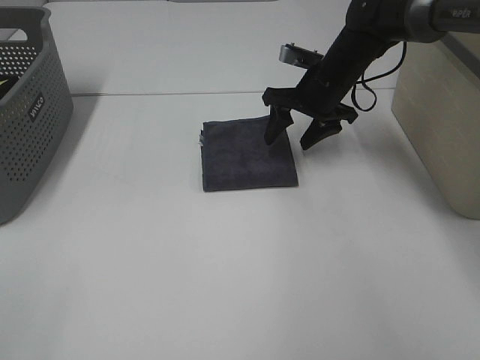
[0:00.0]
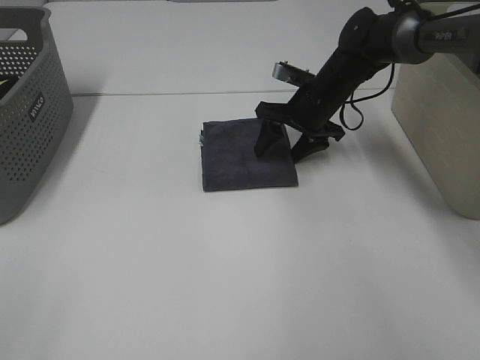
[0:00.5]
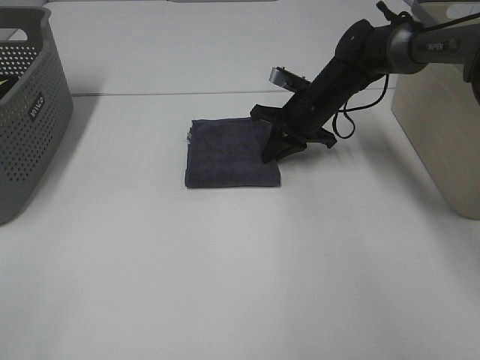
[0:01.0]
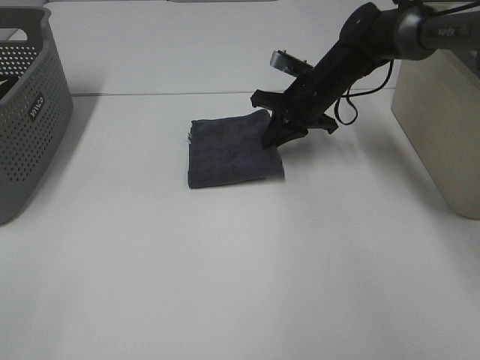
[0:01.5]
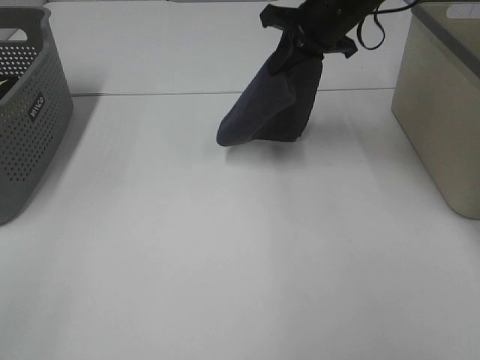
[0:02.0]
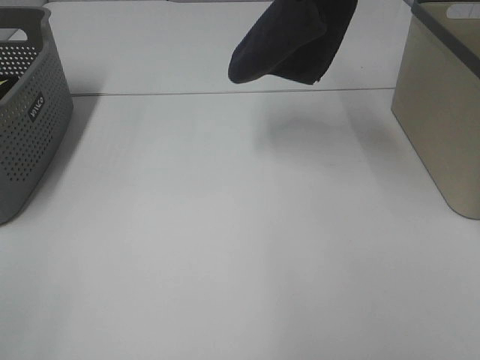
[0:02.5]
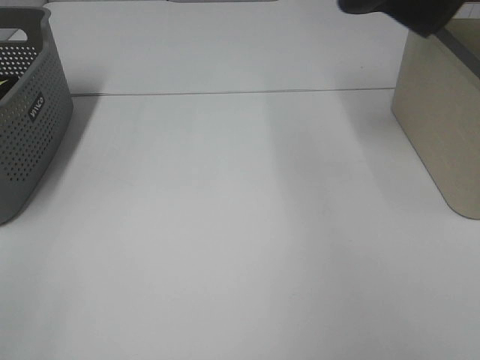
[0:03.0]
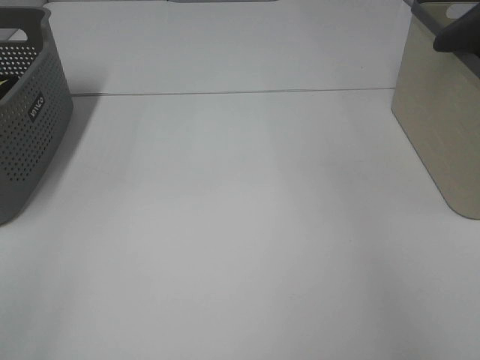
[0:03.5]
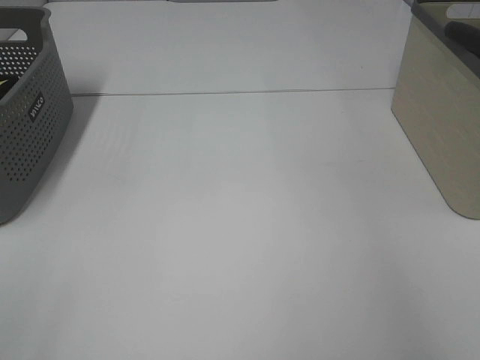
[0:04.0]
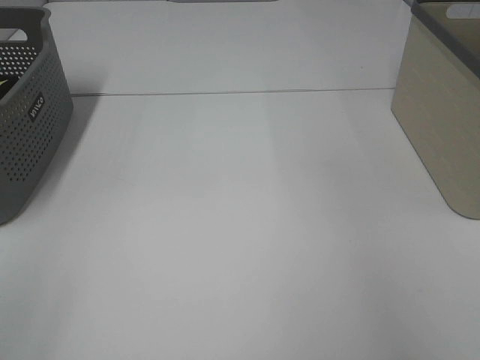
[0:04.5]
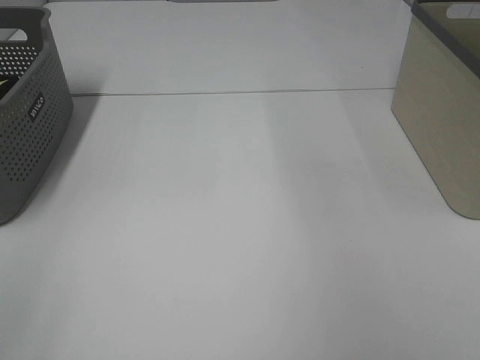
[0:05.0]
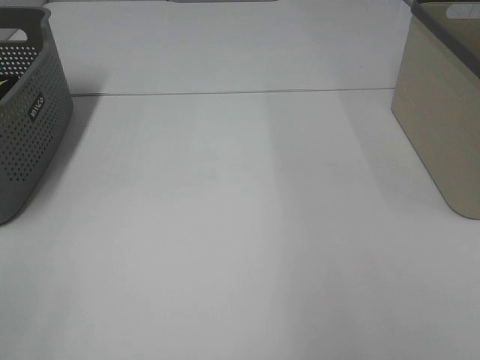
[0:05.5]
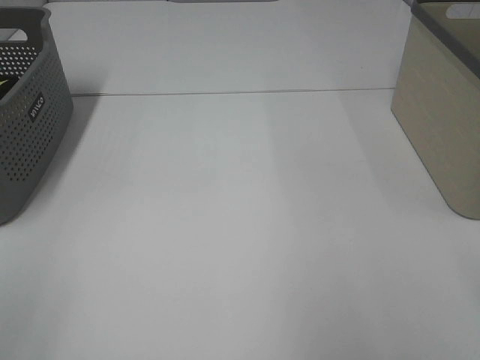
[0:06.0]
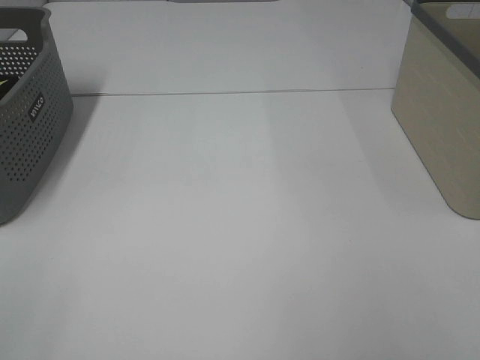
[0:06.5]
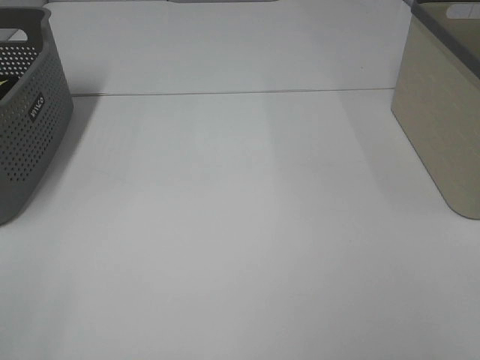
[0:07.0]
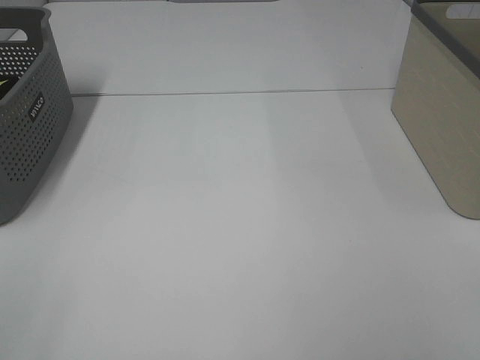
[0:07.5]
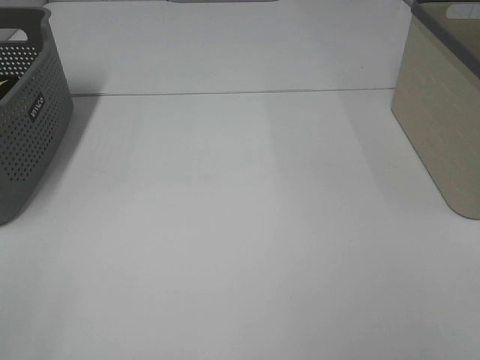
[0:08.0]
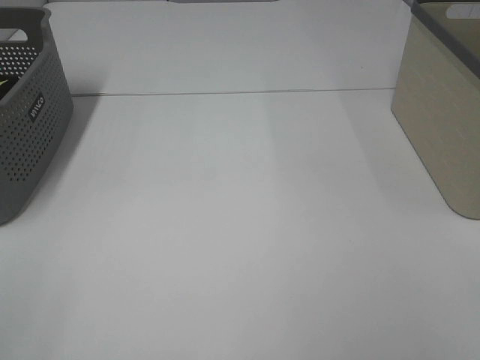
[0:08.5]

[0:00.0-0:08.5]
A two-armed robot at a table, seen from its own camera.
Step, 0:01.5 to 0:04.0: Right hand: place the grey towel in right basket.
0:00.0 to 0:02.0: The right gripper is displaced upward by some 10 cm, and closes up.
0:02.0 to 0:04.0: The right gripper heads to the right, covering roughly 25 cm, and opens up.

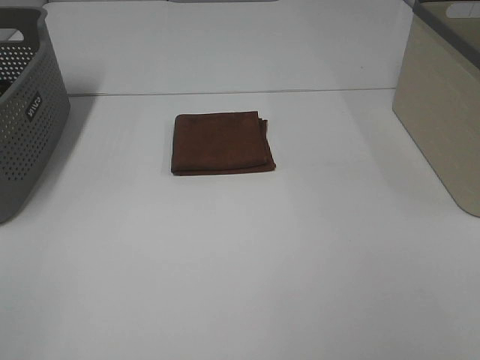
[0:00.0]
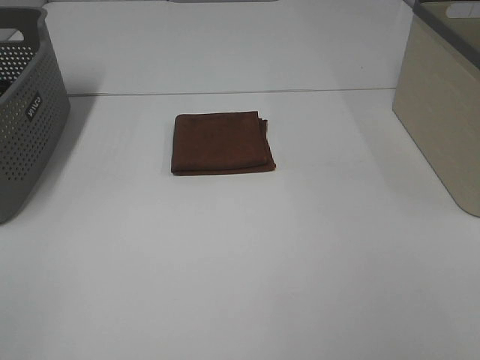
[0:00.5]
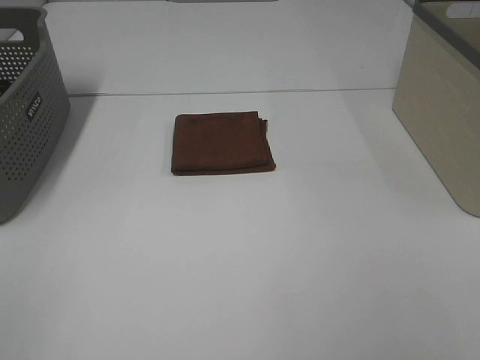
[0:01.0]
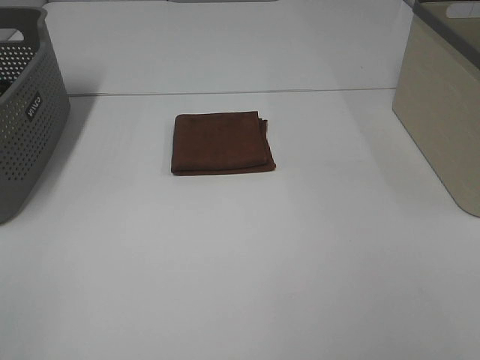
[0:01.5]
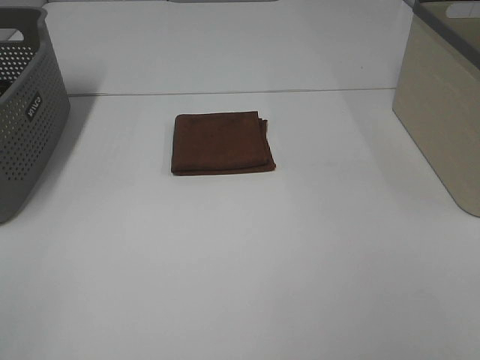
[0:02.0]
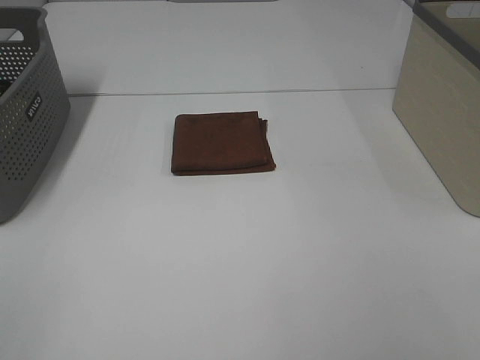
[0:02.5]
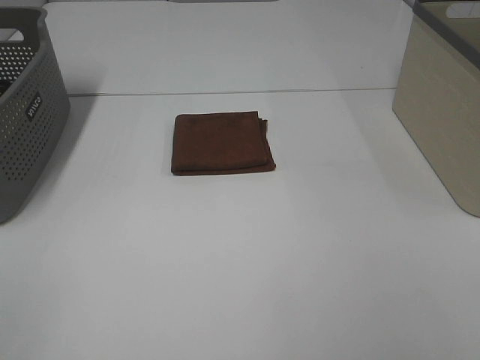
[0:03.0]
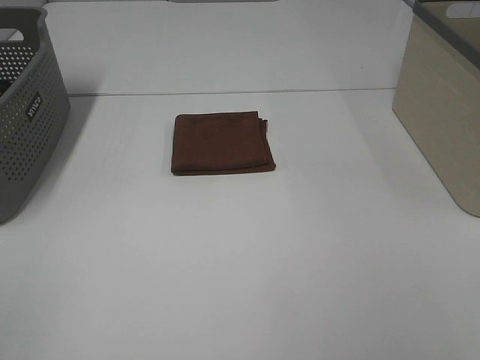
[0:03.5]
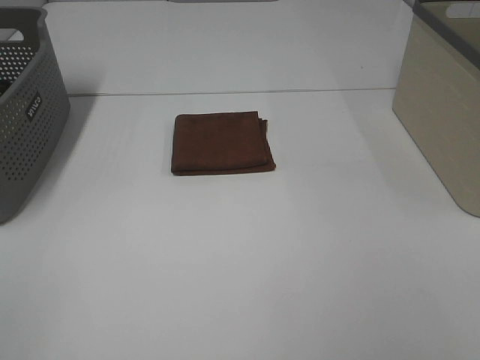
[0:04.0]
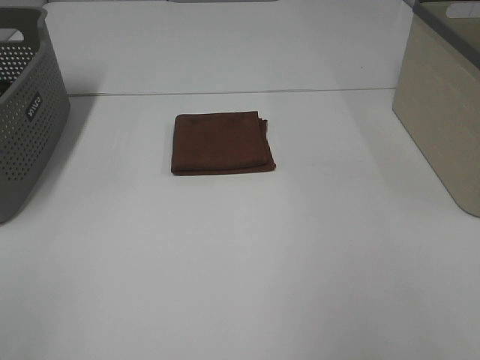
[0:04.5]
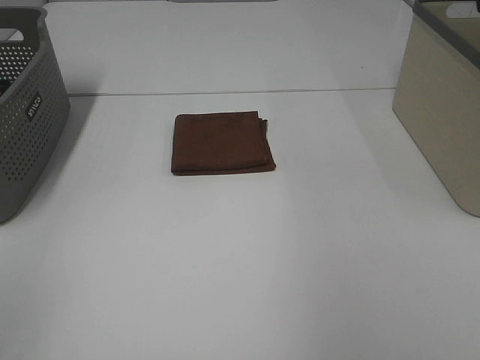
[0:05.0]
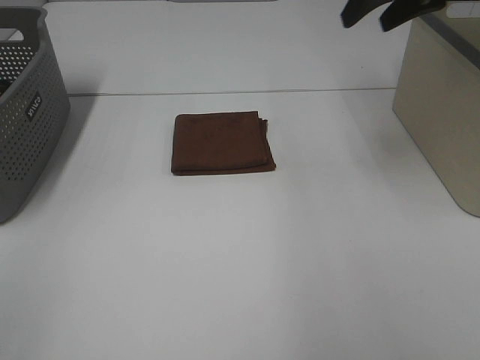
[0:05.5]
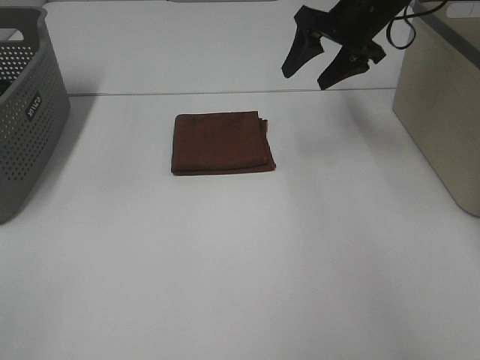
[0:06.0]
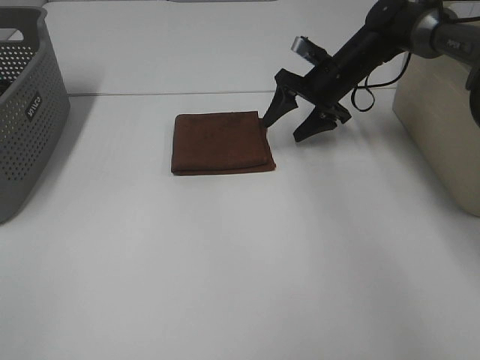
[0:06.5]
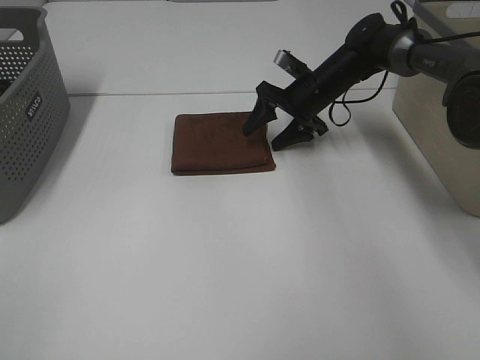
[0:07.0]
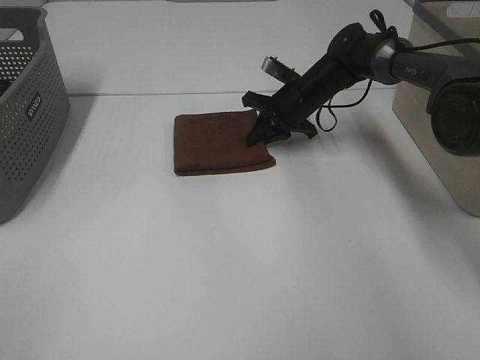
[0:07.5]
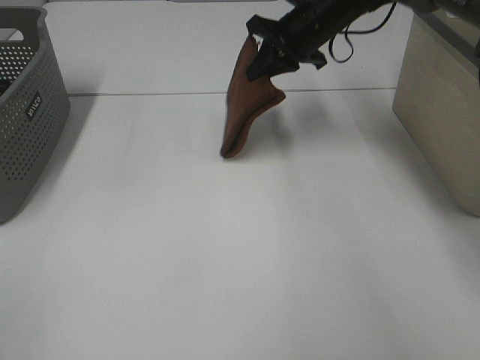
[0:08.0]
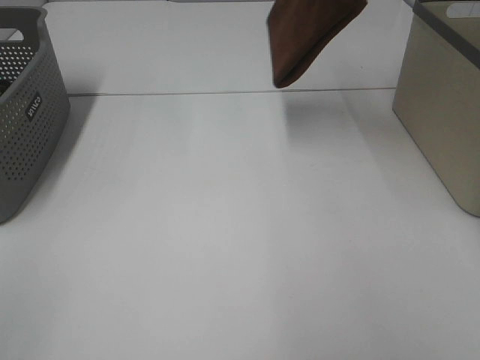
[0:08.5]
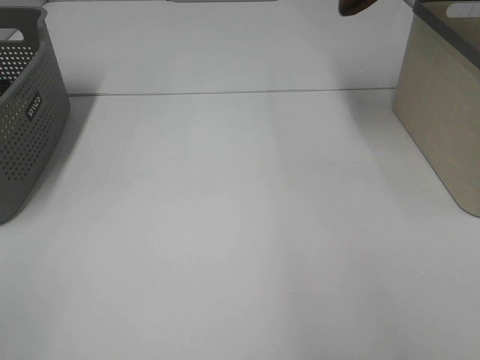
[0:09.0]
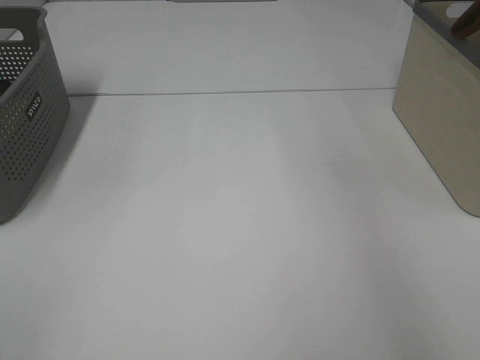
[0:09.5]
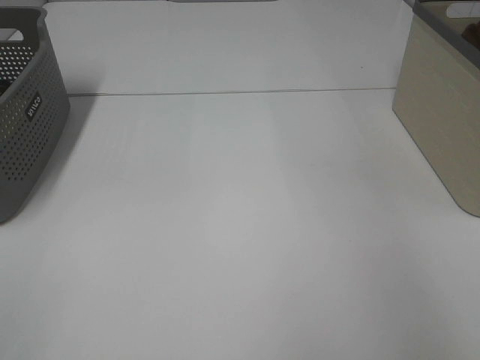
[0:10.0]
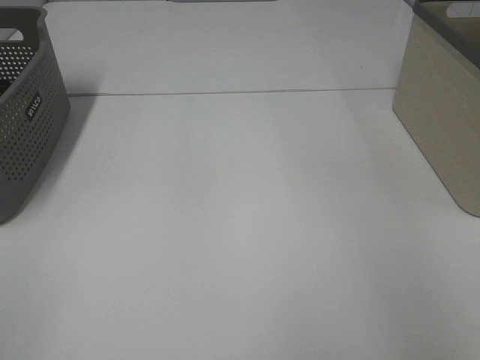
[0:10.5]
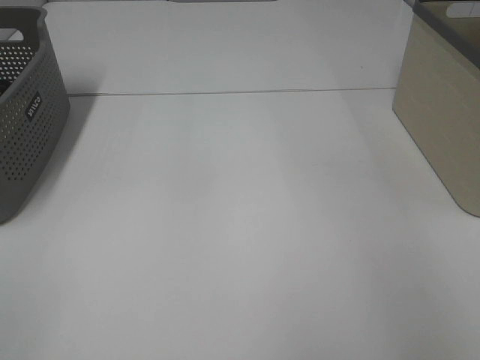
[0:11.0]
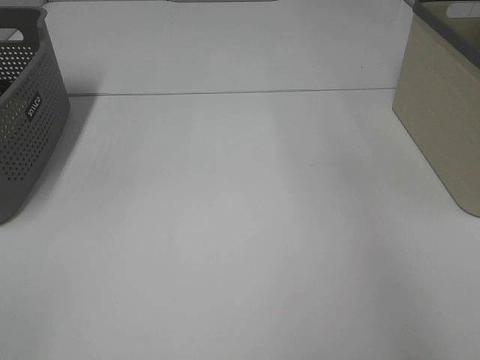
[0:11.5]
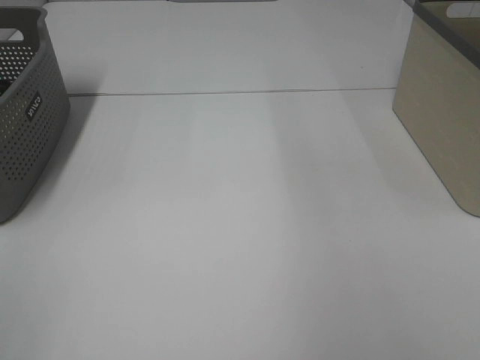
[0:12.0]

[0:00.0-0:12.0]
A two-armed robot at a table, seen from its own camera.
Step, 0:00.0 to 0:07.0: Right hand: grab the folded brown towel.
Step, 0:07.5 to 0:11.0: Right hand: place the brown towel in right basket.
0:00.0 to 0:04.0: The two grippers keep their place.
0:04.0 to 0:06.0: The right gripper travels forward by roughly 50 cm.
0:06.0 to 0:08.0: The right gripper is displaced to the left by about 5 cm, reaches about 15 cm downward, then returns, and closes up.
0:08.0 to 0:10.0: The right gripper is displaced to the right by about 30 cm.

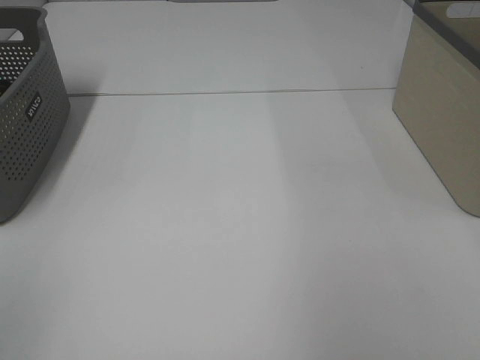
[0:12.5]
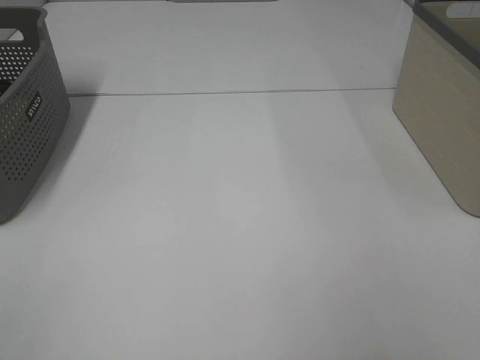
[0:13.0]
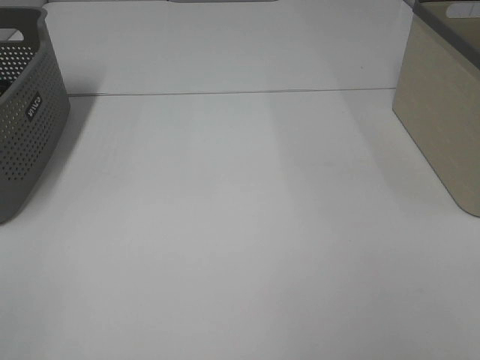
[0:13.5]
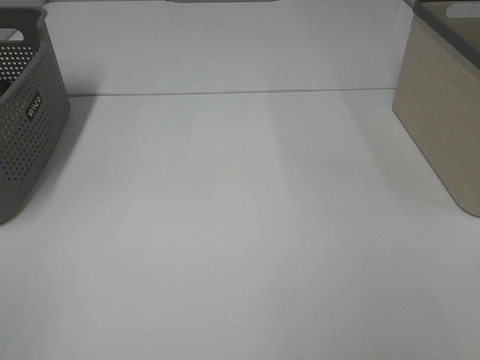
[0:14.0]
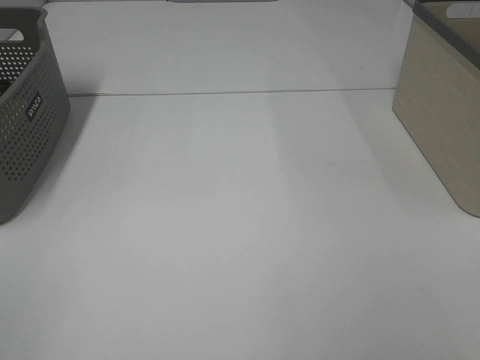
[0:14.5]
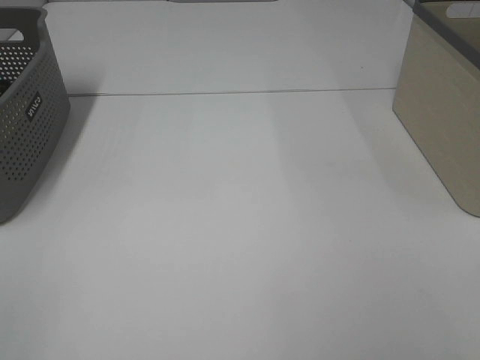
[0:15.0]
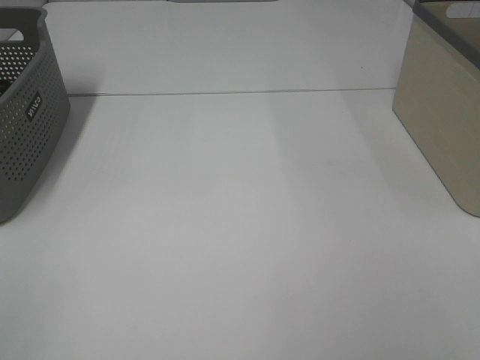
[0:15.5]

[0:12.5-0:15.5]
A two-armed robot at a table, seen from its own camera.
0:14.0 to 0:15.5: Both grippers stay put.
